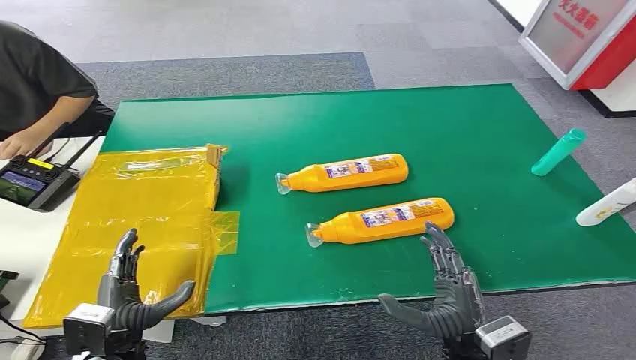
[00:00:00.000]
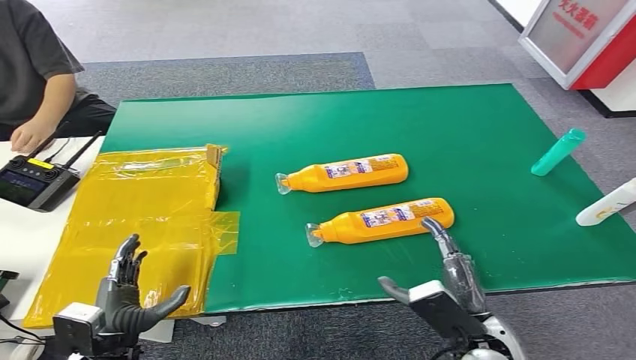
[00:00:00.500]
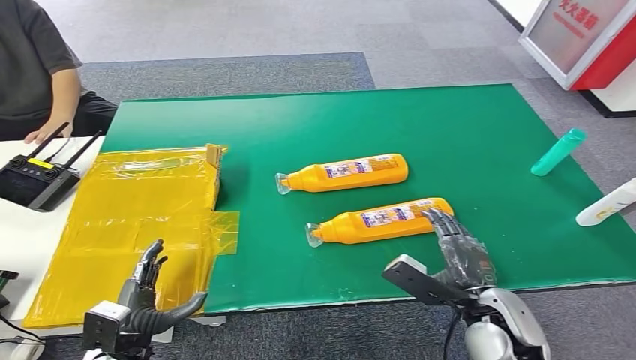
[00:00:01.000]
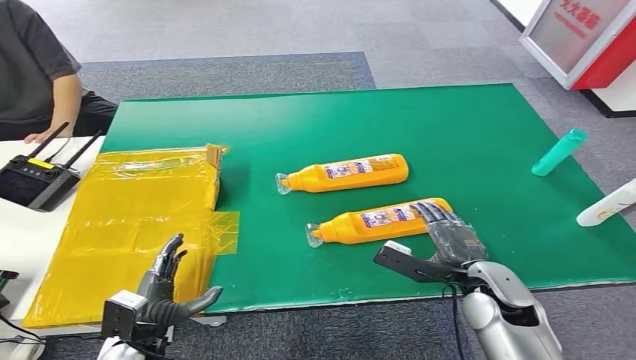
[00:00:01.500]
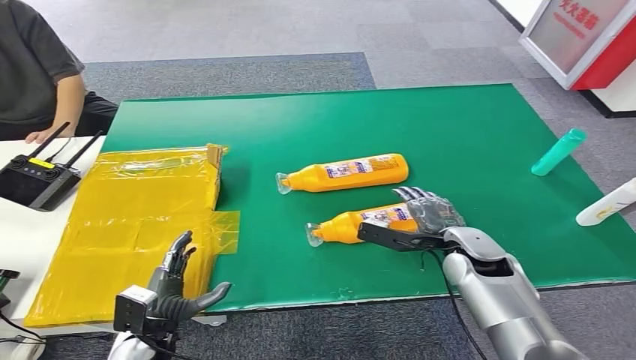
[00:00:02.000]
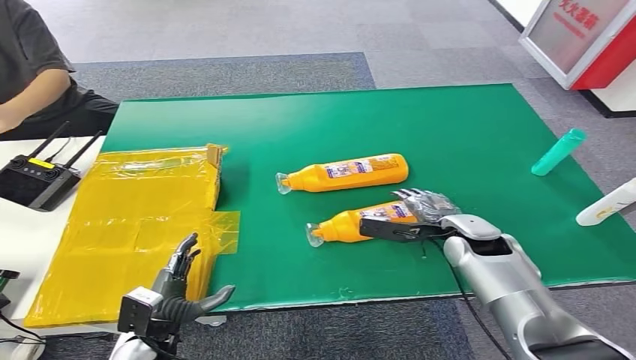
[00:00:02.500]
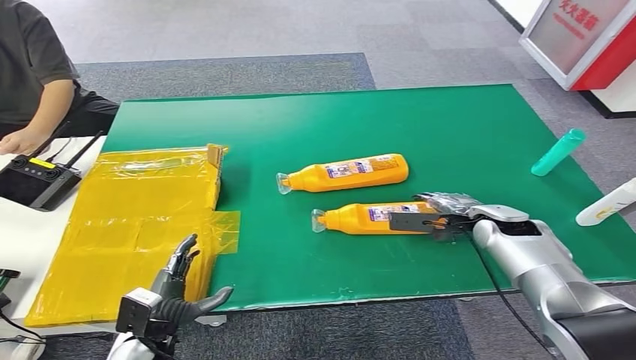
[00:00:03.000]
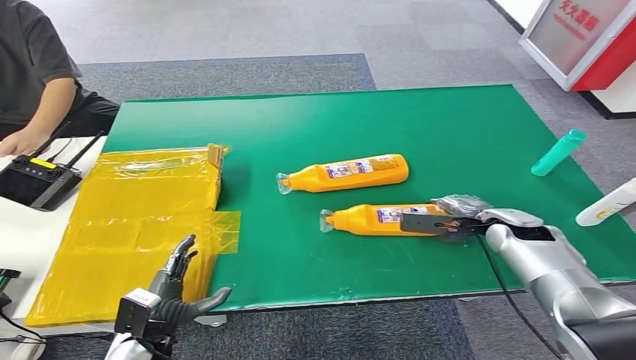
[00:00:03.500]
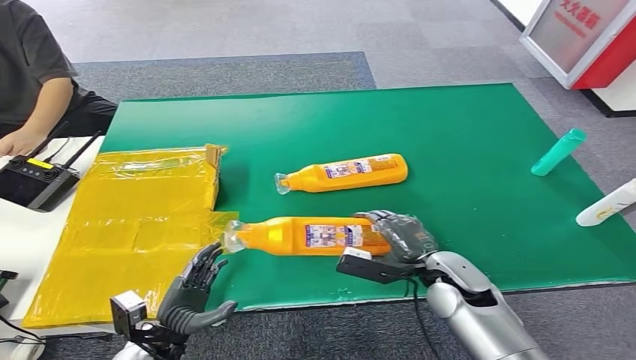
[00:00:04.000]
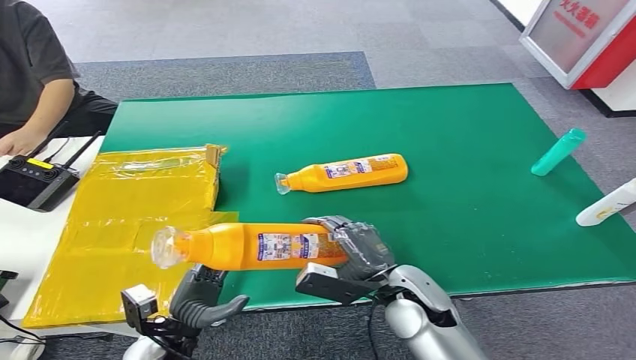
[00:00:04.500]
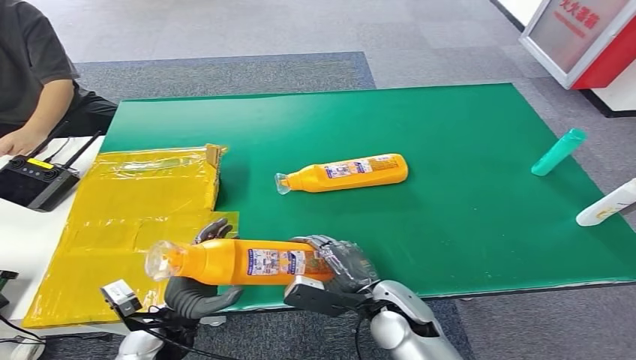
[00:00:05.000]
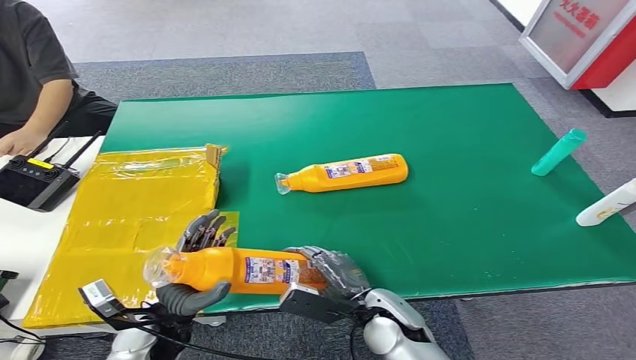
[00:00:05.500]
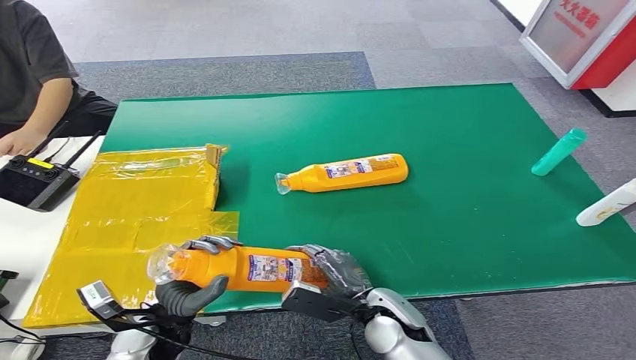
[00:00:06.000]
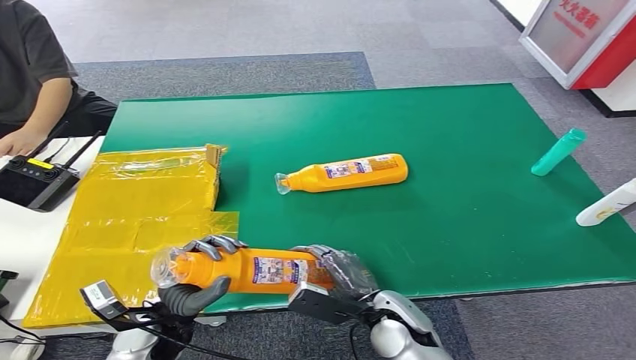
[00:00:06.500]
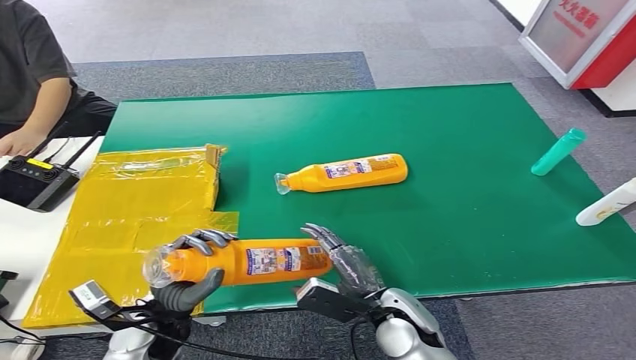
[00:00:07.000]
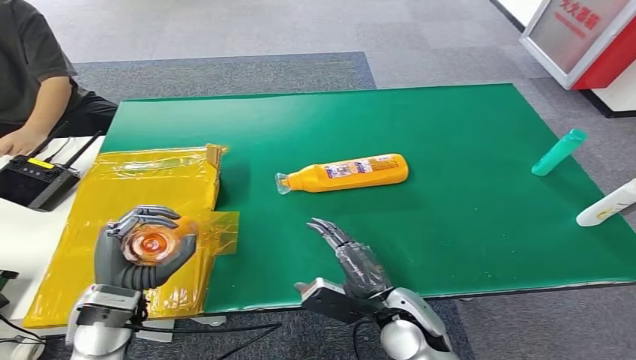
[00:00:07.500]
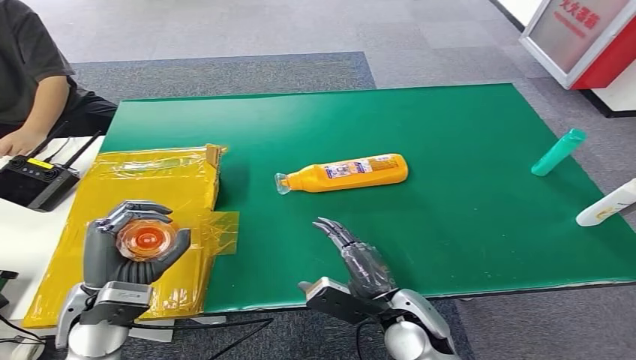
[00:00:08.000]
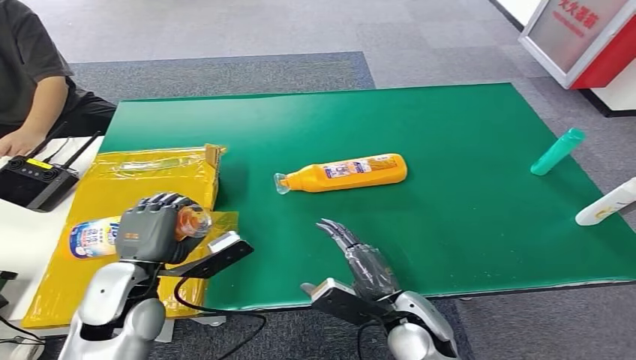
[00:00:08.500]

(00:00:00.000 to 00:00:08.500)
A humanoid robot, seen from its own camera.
Step, 00:00:00.000 - 00:00:04.500: Pick up the bottle from the table.
Step, 00:00:05.000 - 00:00:08.500: Turn the bottle to the front side.
00:00:02.000 - 00:00:04.000: The right hand is displaced backward by some 5 cm, and goes to the right and returns, about 10 cm each way.
00:00:04.000 - 00:00:06.500: The left hand goes roughly 5 cm upward, while the right hand heads to the left and backward, covering roughly 10 cm.
00:00:06.500 - 00:00:08.500: The left hand travels upward by about 10 cm.
